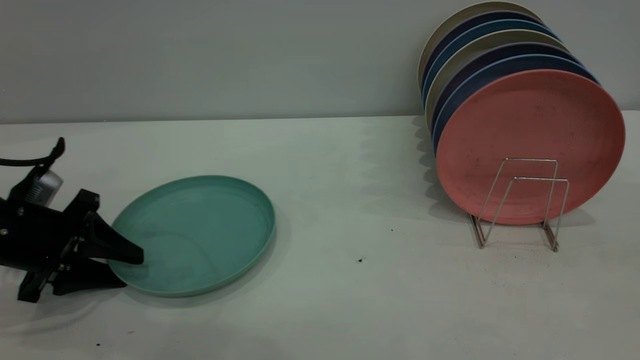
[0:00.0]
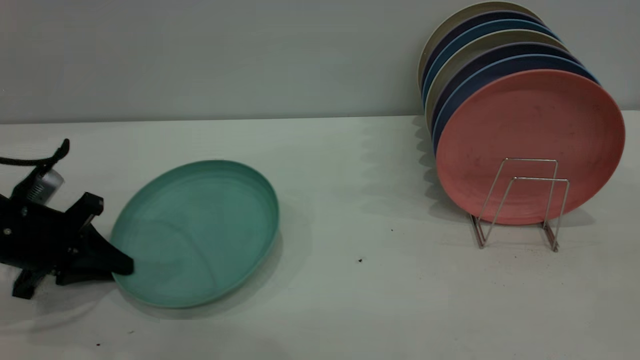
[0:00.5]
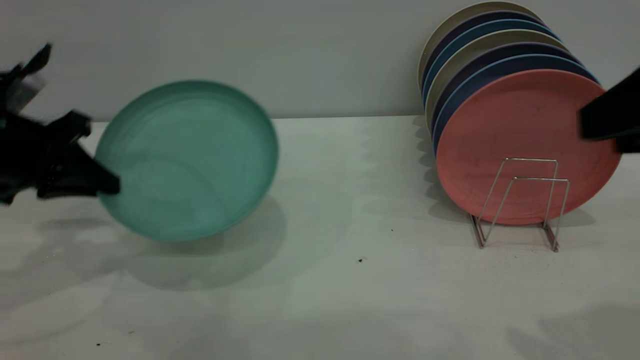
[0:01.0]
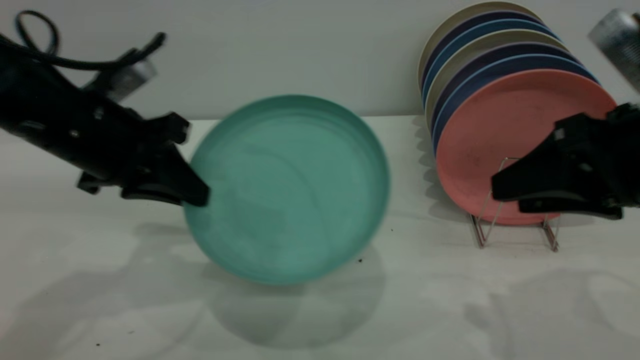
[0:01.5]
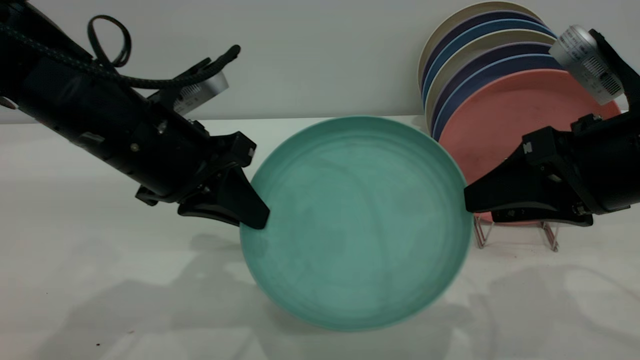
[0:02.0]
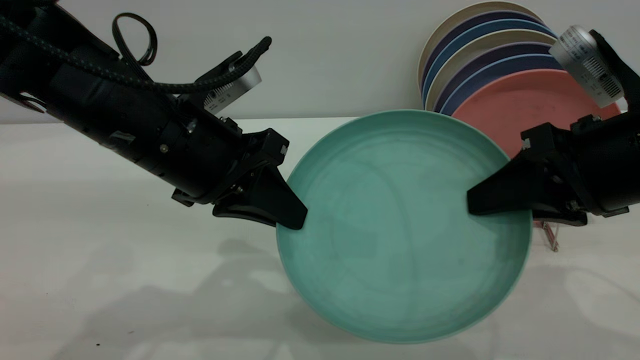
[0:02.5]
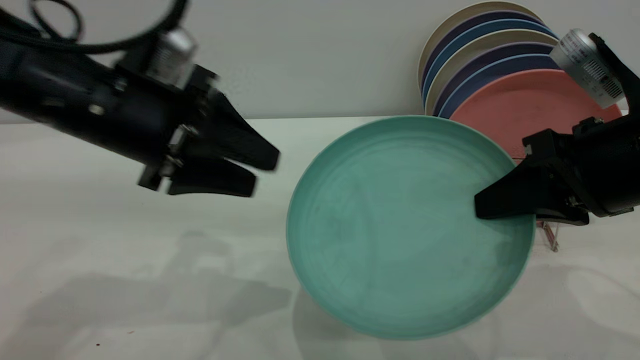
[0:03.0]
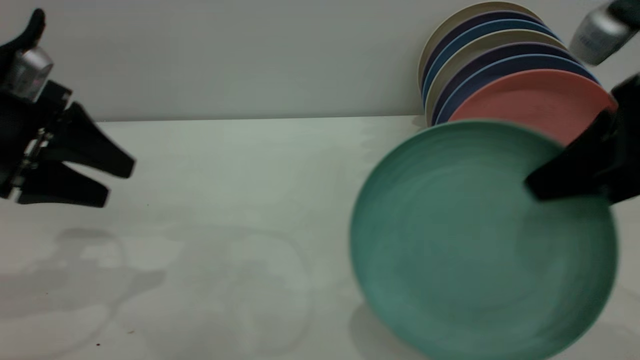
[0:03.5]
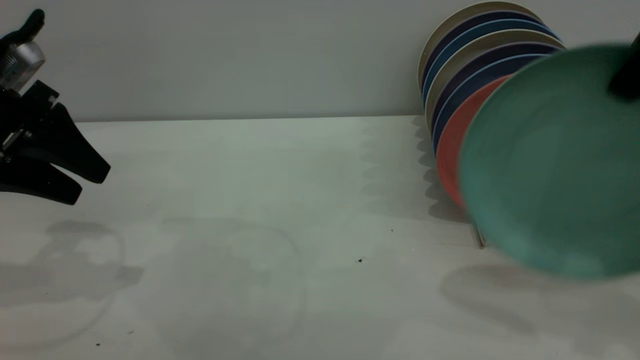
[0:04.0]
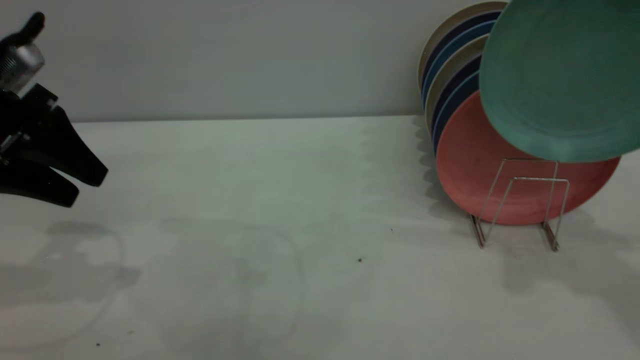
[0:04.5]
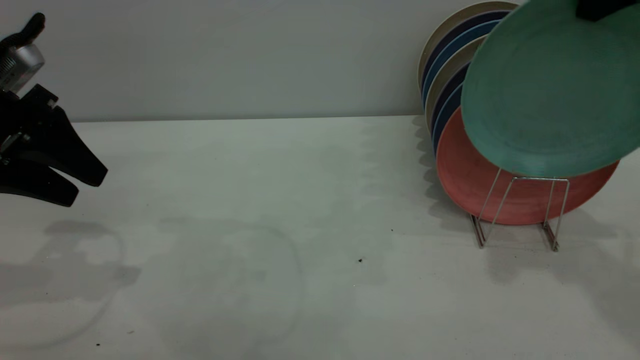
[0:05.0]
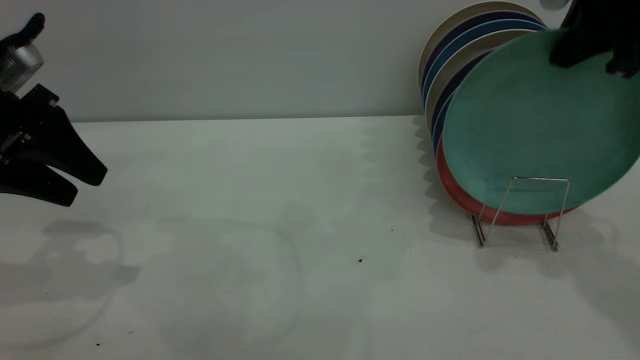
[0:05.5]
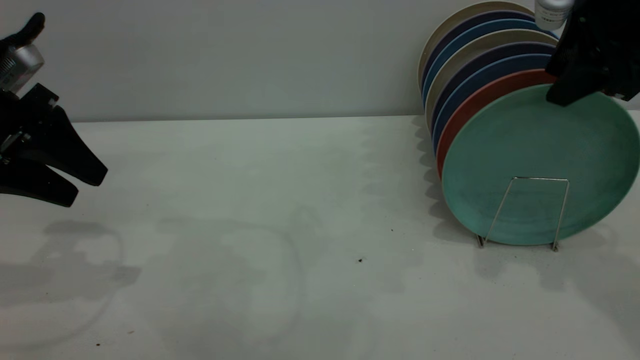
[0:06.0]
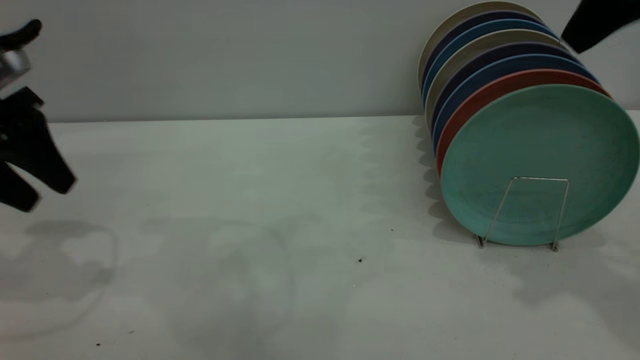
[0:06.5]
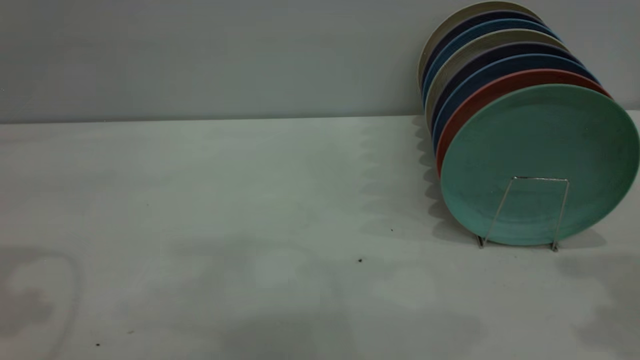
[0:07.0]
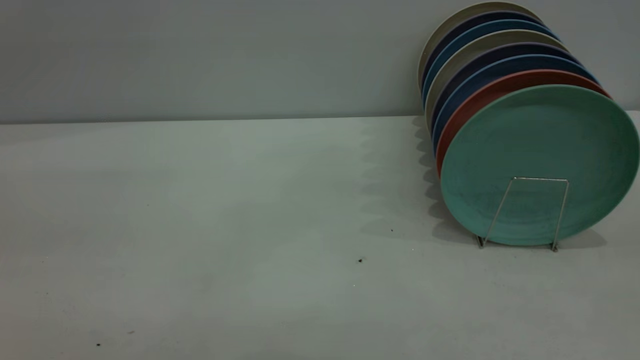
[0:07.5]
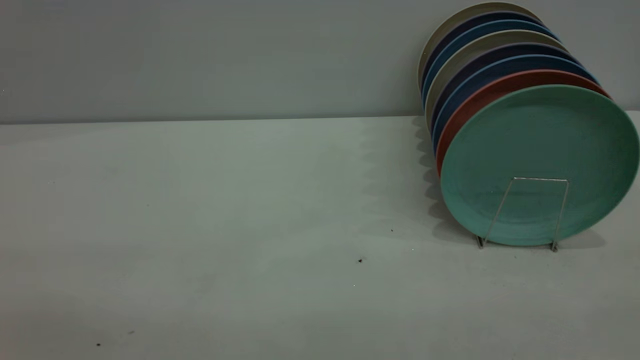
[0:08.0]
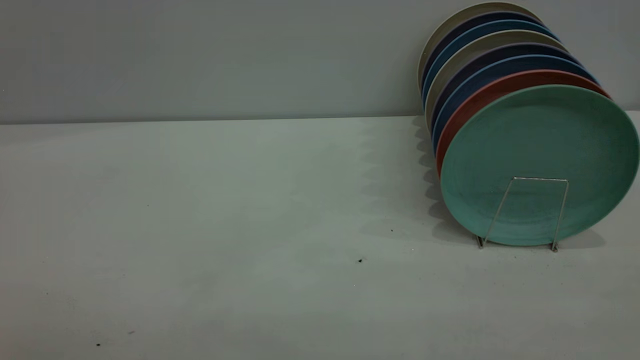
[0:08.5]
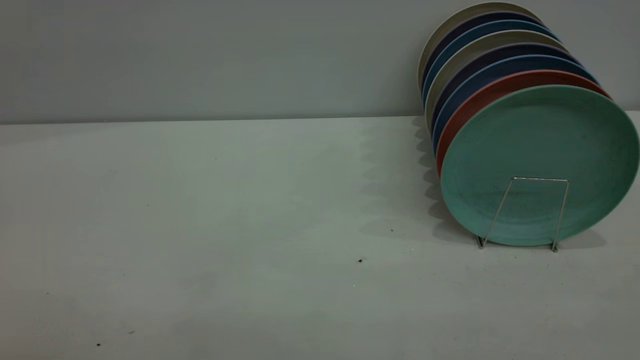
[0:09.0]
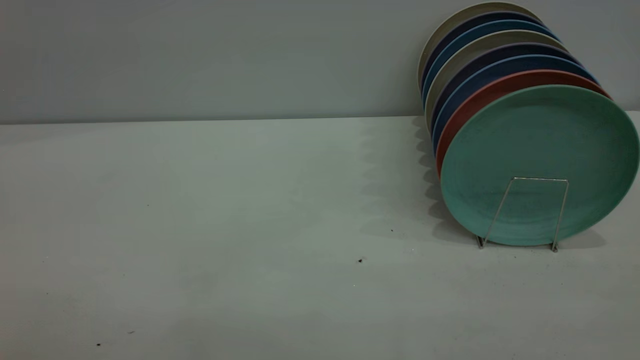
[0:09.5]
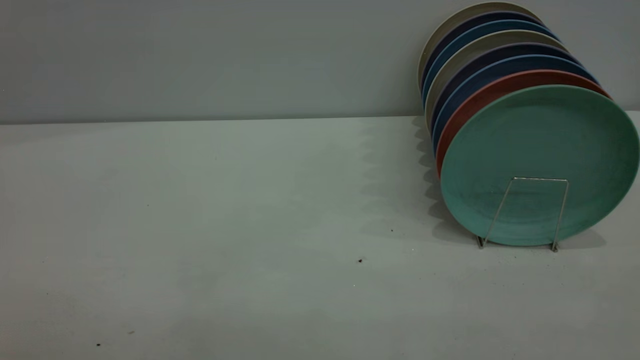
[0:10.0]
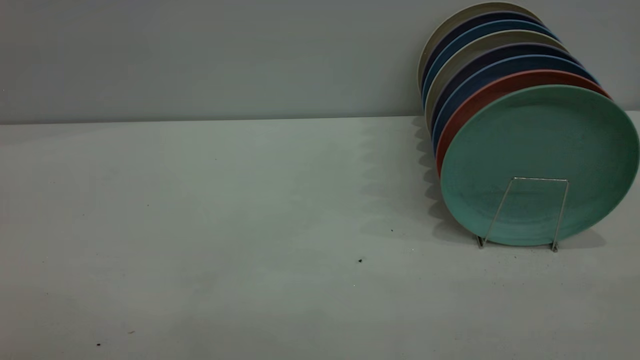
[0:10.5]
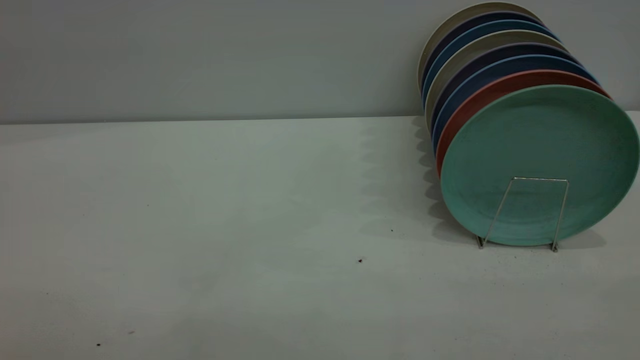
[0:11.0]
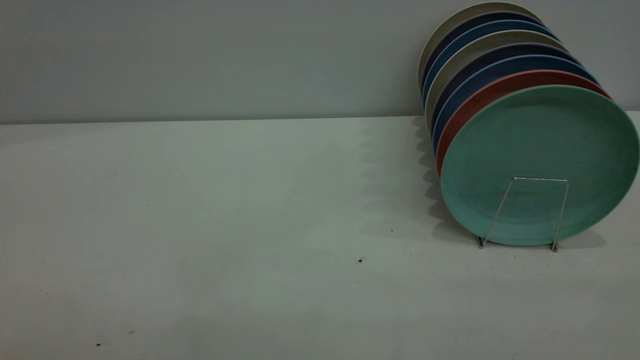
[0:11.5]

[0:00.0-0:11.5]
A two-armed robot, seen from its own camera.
Task of the whole recording: the left gripper grasp the green plate, the left gripper pass the green plate to the right gripper, and the right gripper place the green plate on the plate rack.
Step, 0:01.0 to 0:03.0: Pass the plate from the left gripper to the right gripper.
Step, 0:03.5 to 0:06.5: Place the plate on the shelf.
0:00.0 to 0:02.0: The right gripper shifts approximately 20 cm downward and forward. Meanwhile the left gripper heads to the right and upward, covering about 20 cm, and closes up.
0:02.0 to 0:04.0: The left gripper is displaced to the left by approximately 15 cm, and opens its fingers. Meanwhile the right gripper travels upward by approximately 15 cm, and closes its fingers.
0:04.0 to 0:06.0: The right gripper goes approximately 10 cm forward, and opens up.
0:06.0 to 0:07.5: The grippers both shift backward and upward by some 30 cm.
